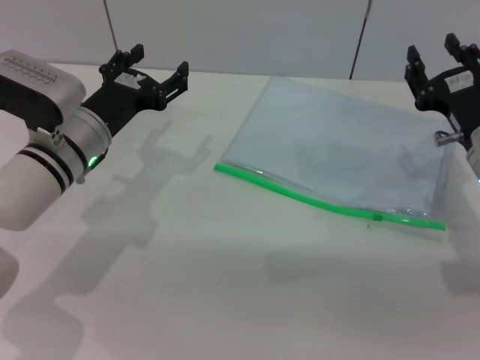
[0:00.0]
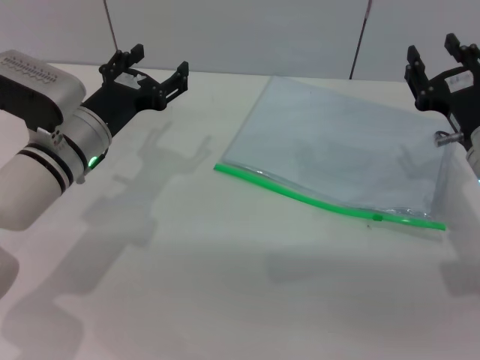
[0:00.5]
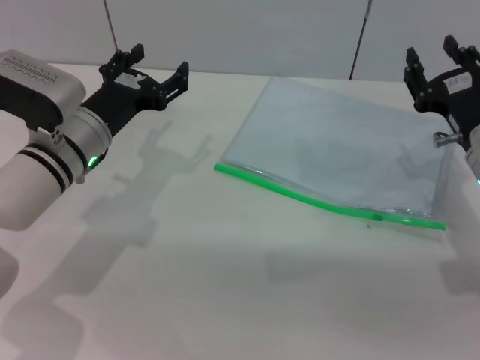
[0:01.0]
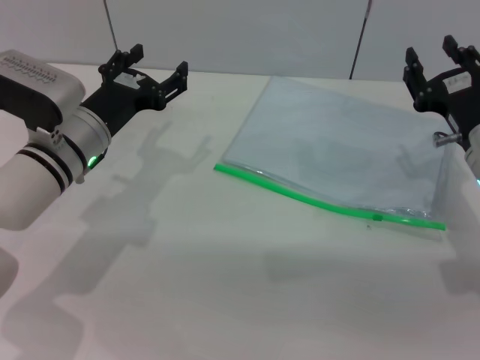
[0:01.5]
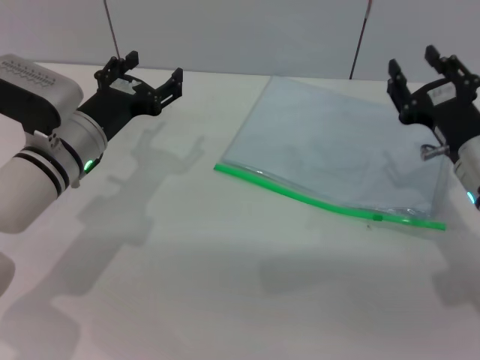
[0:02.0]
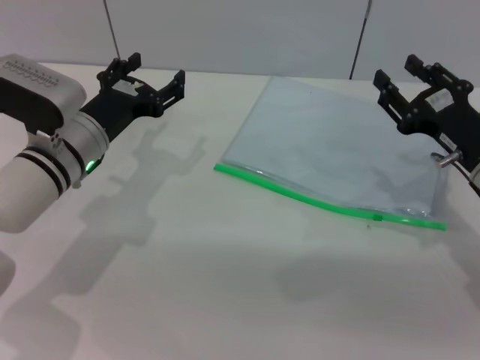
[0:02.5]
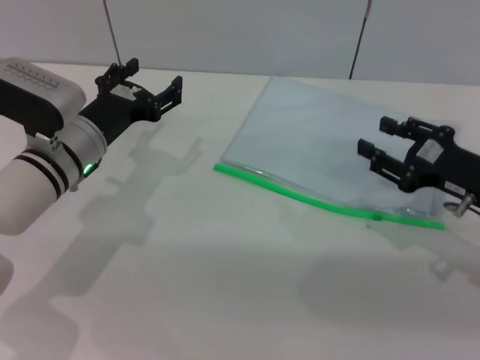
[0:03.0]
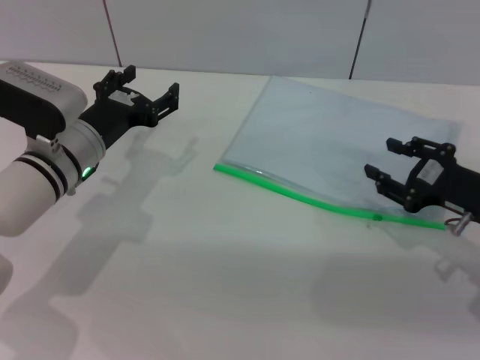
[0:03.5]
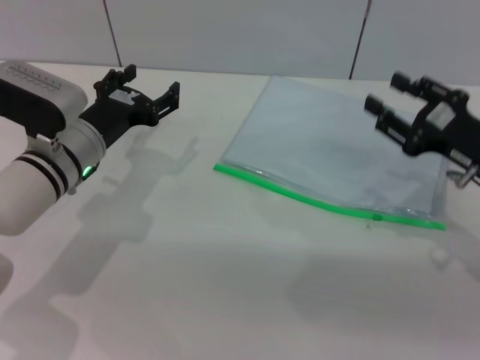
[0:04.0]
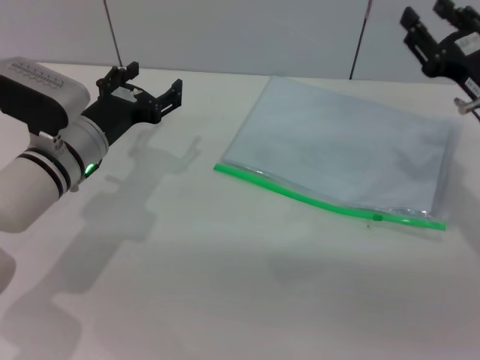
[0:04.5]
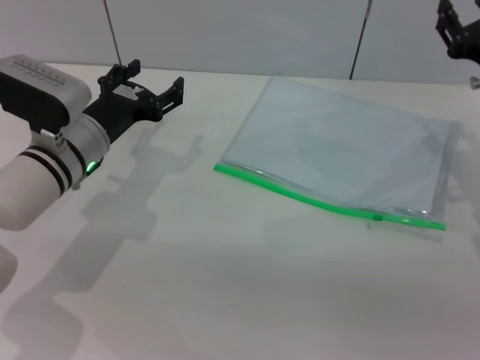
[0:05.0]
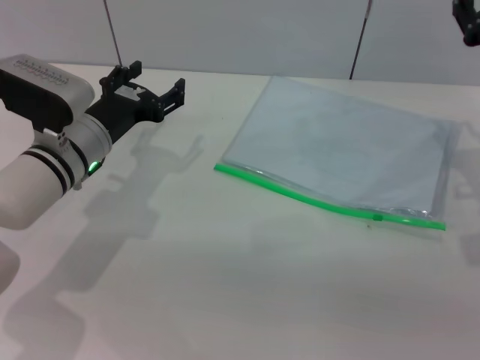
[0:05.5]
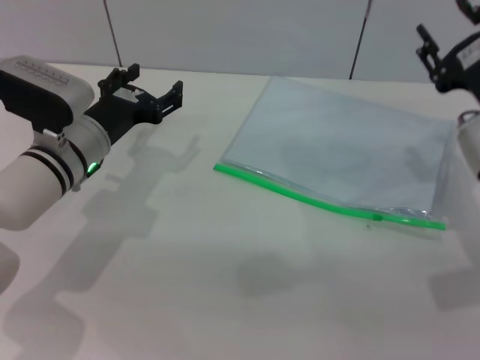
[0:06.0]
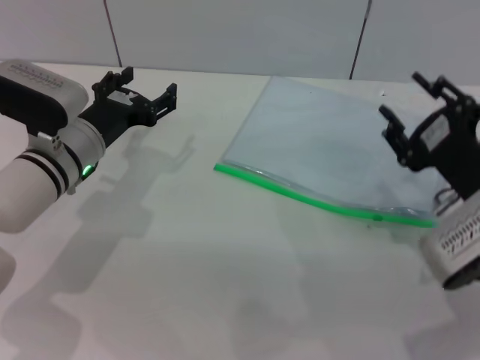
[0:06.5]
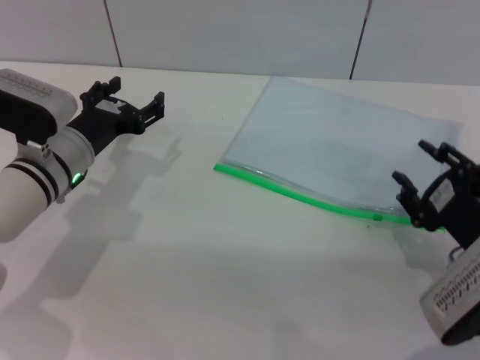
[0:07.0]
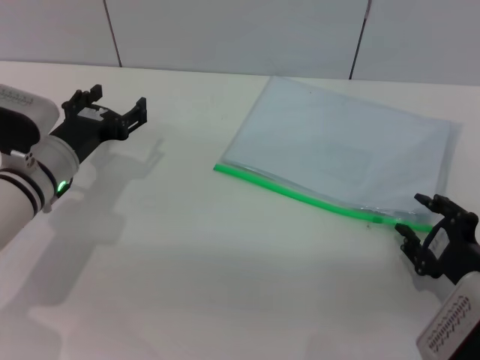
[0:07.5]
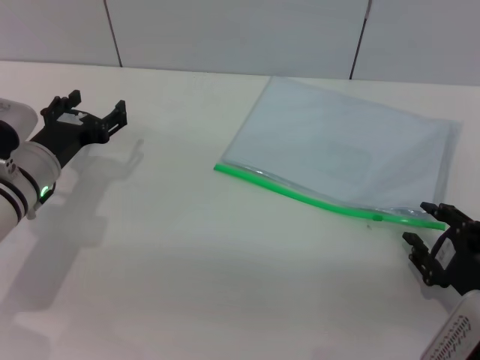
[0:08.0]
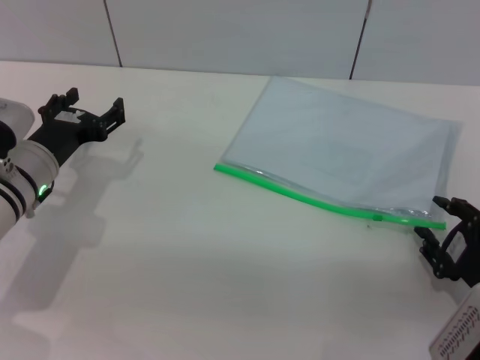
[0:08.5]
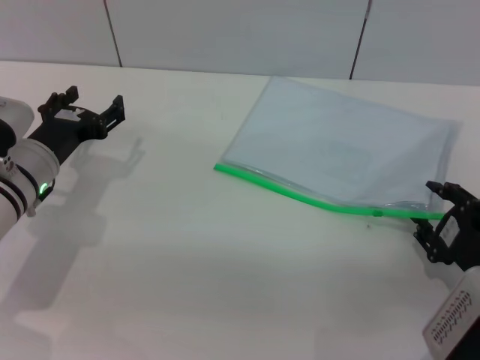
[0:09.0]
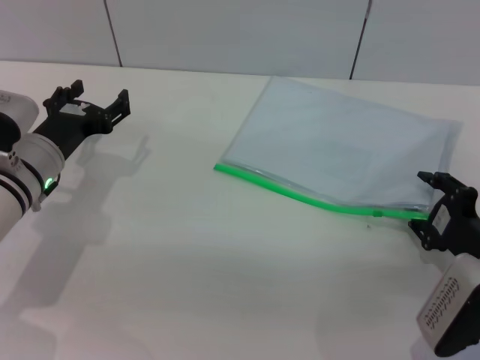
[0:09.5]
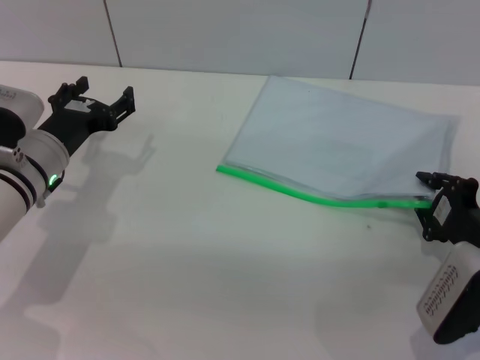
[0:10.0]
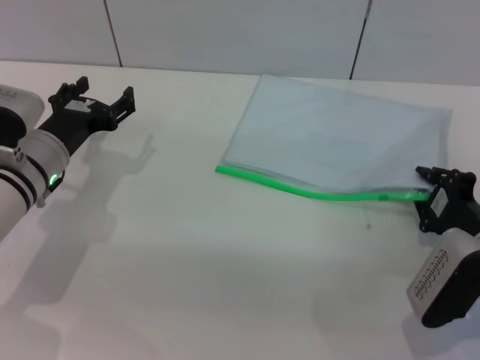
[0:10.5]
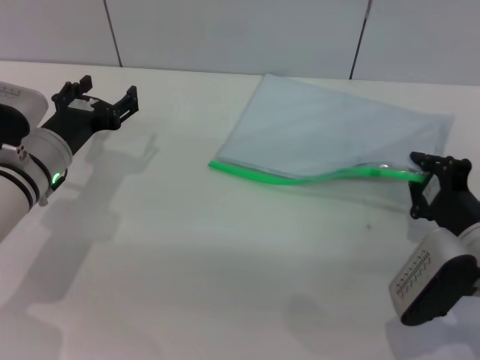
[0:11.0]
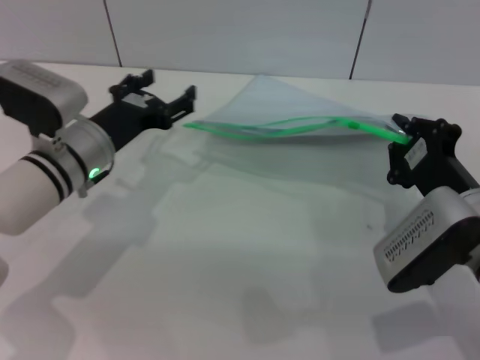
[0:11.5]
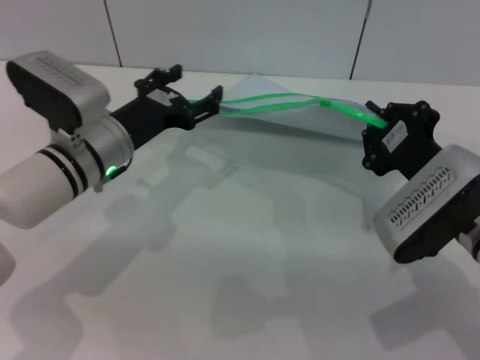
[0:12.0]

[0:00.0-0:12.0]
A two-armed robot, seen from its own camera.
Step, 0.0 to 11.0 s: Pick up the transparent plastic bag with the right gripper.
0.0 to 2.0 s: Neither gripper changes place.
6.0 to 8.0 s: The right gripper is displaced backward and downward by some 15 cm; the left gripper shifts by roughly 5 cm.
8.0 to 10.0 s: The right gripper is displaced forward by some 5 cm.
10.0 to 12.0 s: The right gripper shifts roughly 10 cm upward and to the left, and closes up; the left gripper moves to the right, roughly 5 cm.

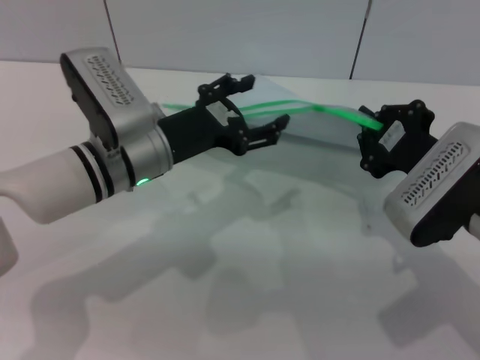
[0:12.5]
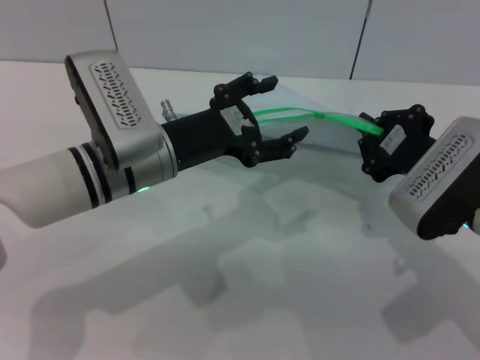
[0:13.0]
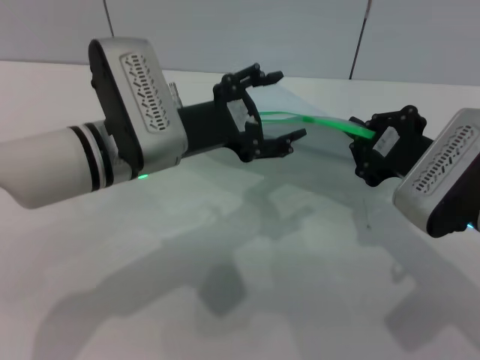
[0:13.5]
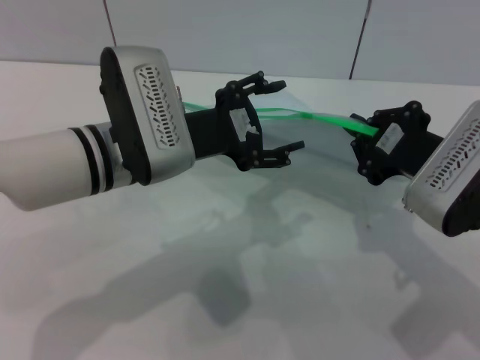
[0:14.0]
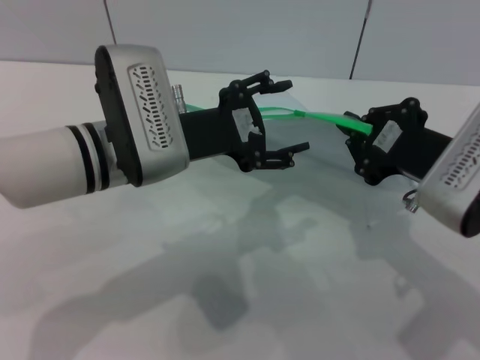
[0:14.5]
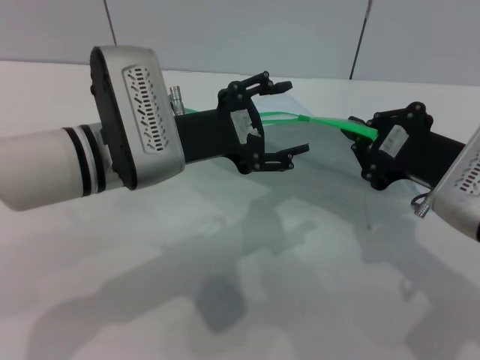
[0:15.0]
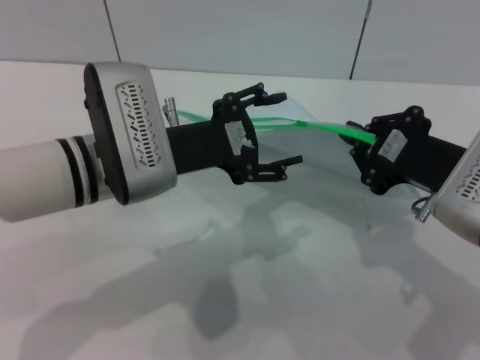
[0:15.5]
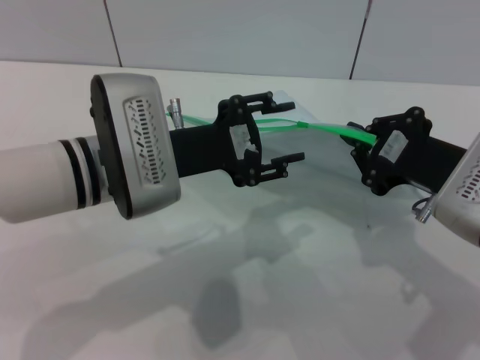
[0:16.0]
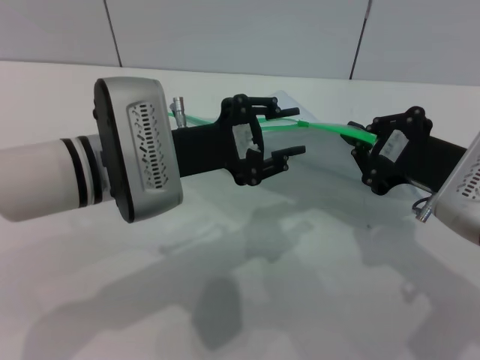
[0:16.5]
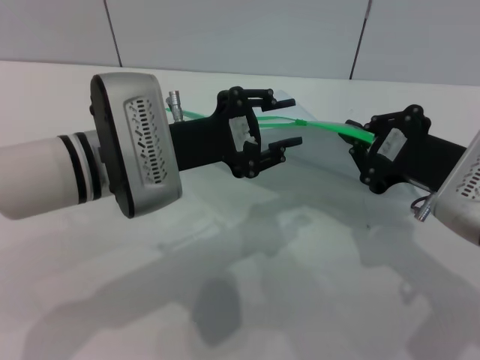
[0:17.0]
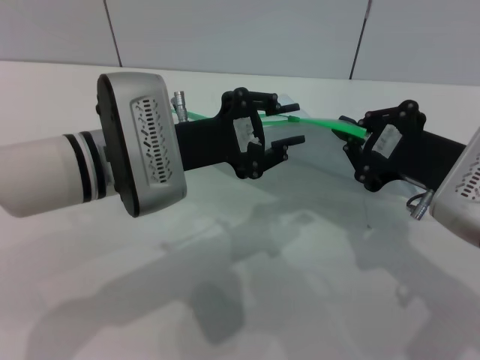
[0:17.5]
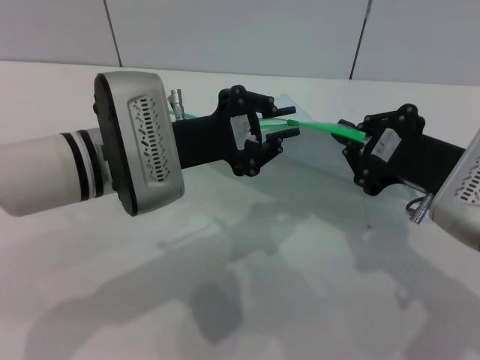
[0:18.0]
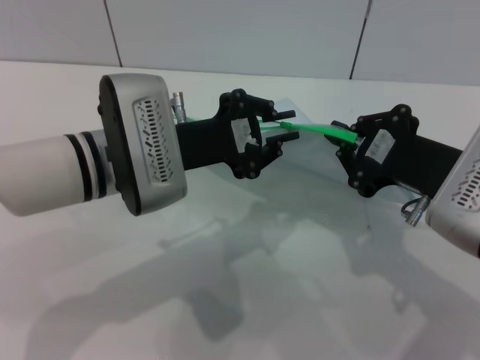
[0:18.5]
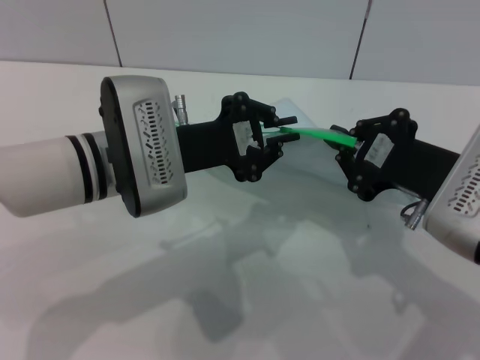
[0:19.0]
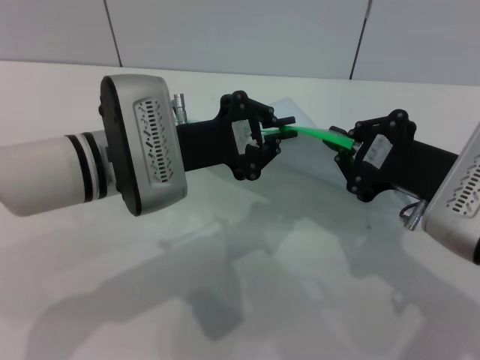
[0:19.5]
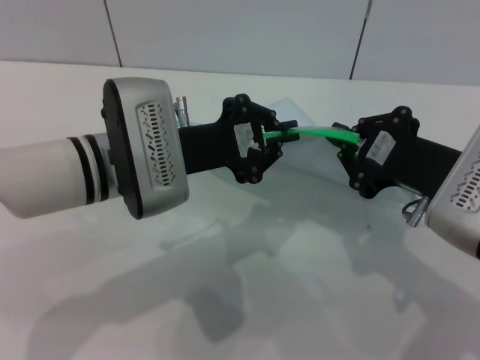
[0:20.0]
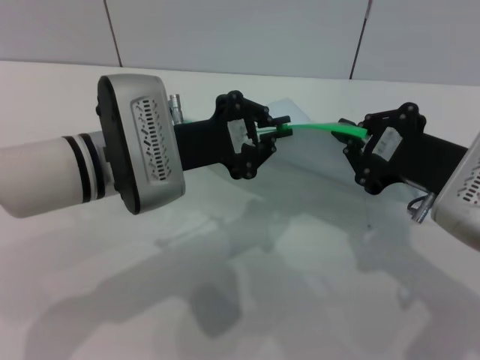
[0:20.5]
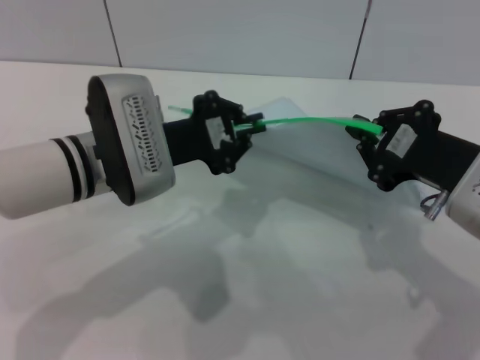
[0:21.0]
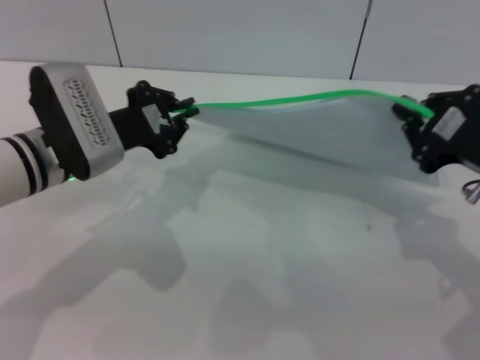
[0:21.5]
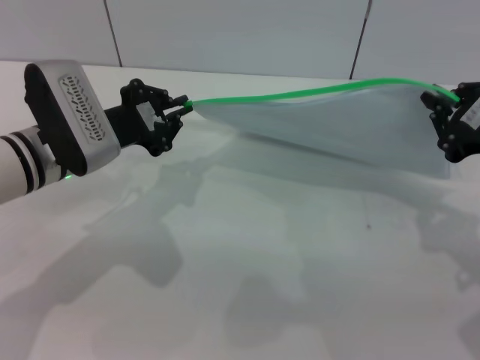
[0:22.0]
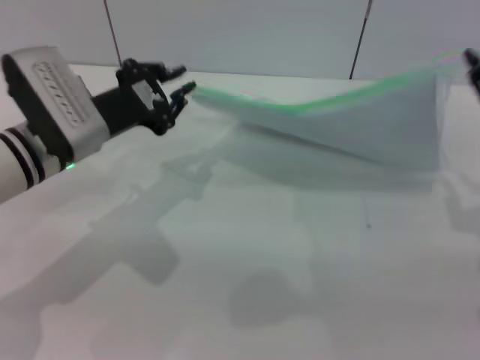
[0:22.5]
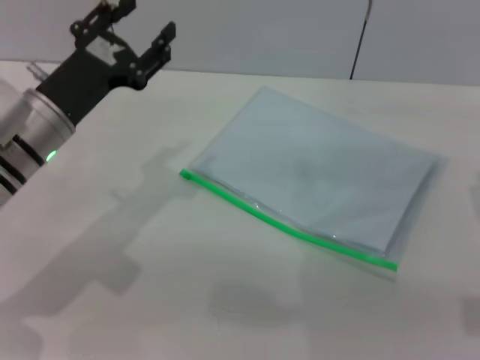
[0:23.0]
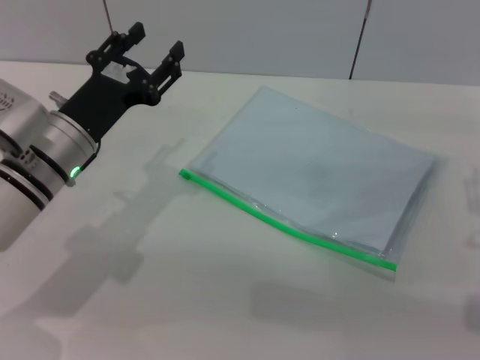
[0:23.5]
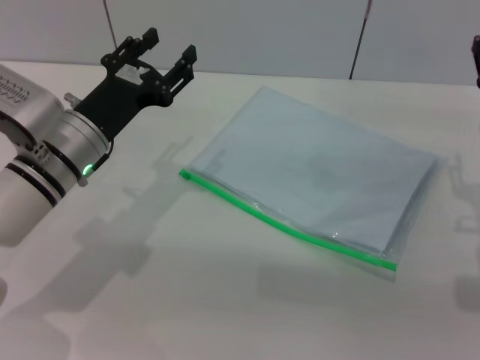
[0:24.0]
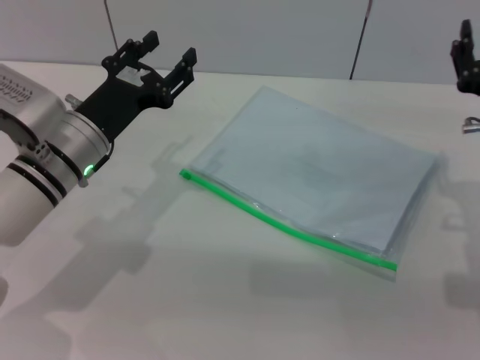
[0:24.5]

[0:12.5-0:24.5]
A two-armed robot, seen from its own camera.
Step, 12.5 to 22.5 s: Pulling up the zipper on the transparent plastic bag with the left gripper to close it.
Step, 23.0 to 23.5 s: Place the transparent plastic bag.
12.5 to 14.5 s: The left gripper ends up some 5 cm from where it was.
14.5 to 16.5 s: The left gripper closes its fingers.
16.5 to 18.5 s: The left gripper closes up.
18.5 to 20.5 s: Neither gripper changes place.
20.5 to 22.5 s: The right gripper is displaced to the right by roughly 5 cm; the left gripper moves to the left, some 10 cm.
22.5 to 24.5 s: The right gripper shifts about 10 cm downward, and opens, while the left gripper opens its fingers.

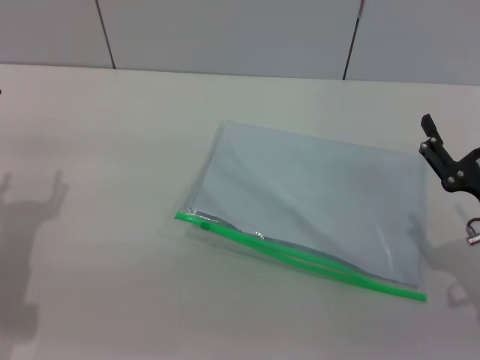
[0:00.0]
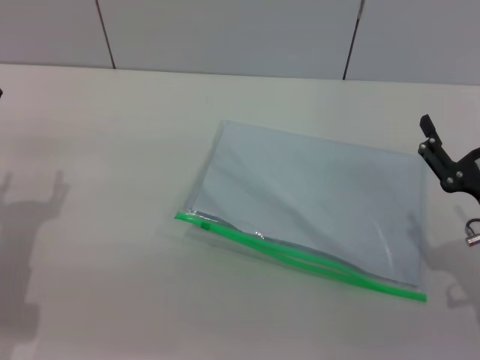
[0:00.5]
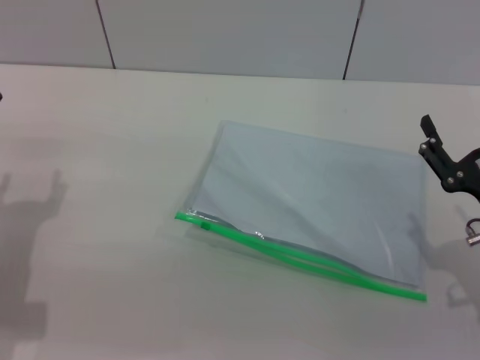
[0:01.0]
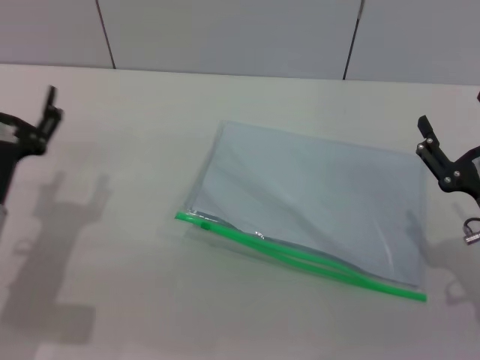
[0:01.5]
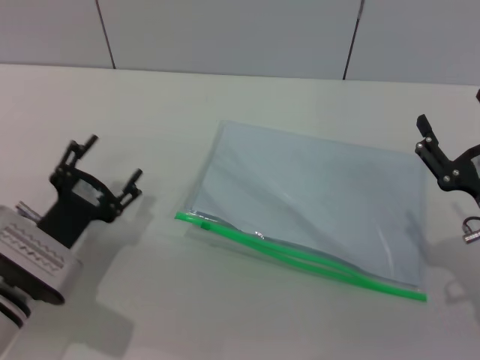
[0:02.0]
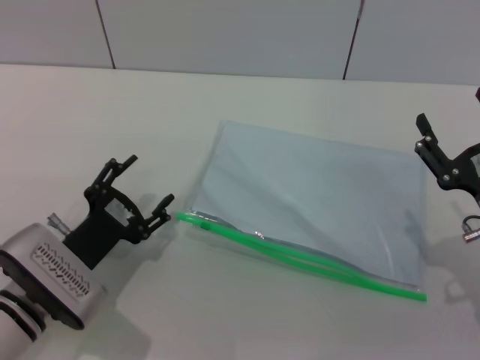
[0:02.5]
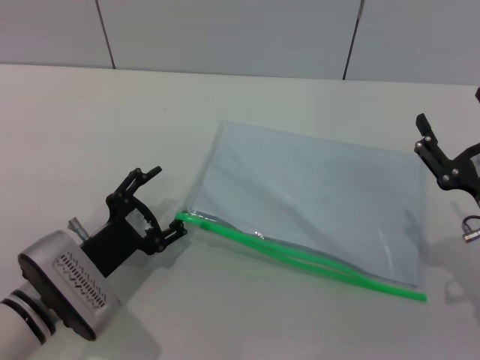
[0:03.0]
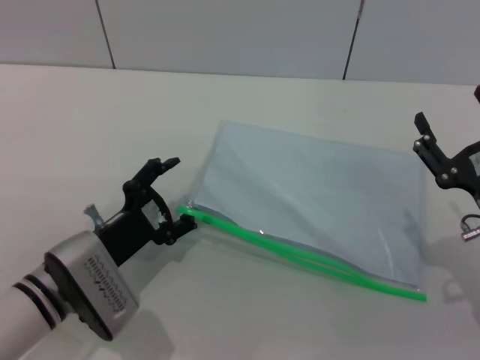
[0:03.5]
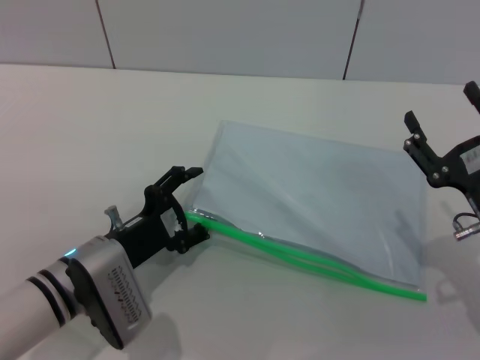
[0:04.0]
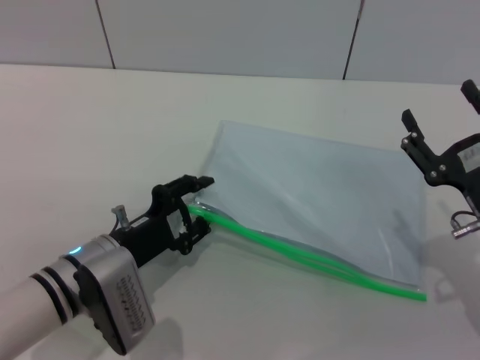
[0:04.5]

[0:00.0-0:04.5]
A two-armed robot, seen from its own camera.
0.0 to 2.0 s: The left gripper heads to the right, covering roughly 5 cm.
2.0 to 4.5 s: The left gripper moves some 5 cm.
